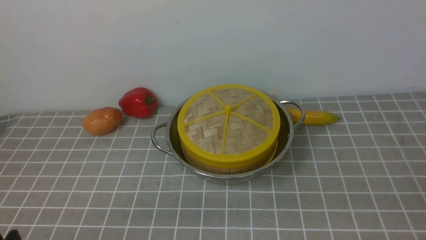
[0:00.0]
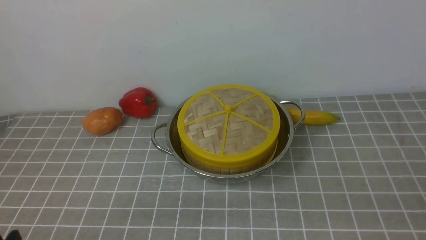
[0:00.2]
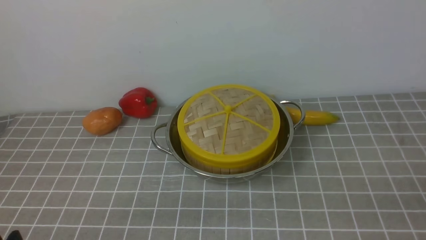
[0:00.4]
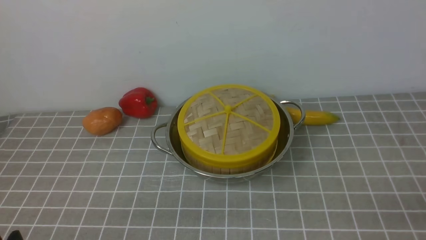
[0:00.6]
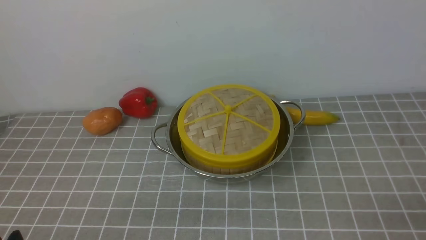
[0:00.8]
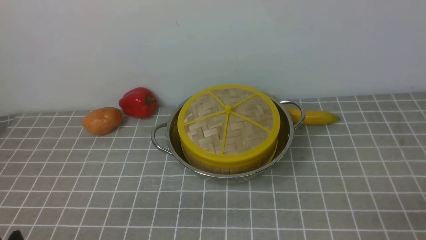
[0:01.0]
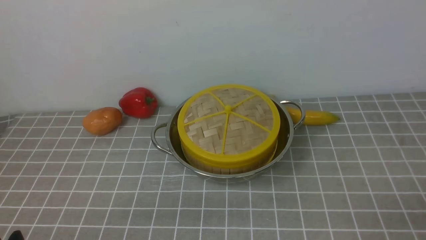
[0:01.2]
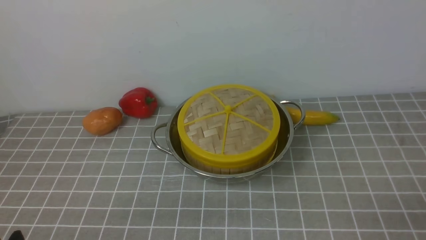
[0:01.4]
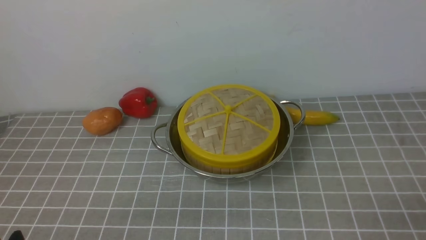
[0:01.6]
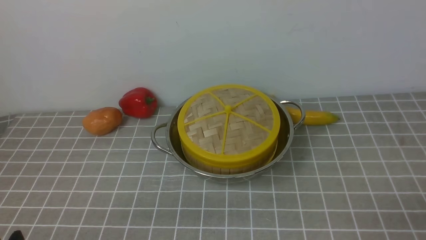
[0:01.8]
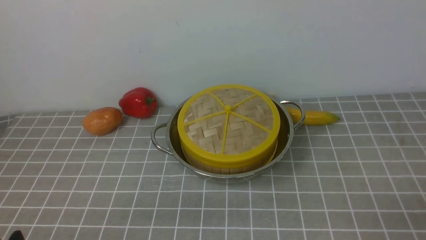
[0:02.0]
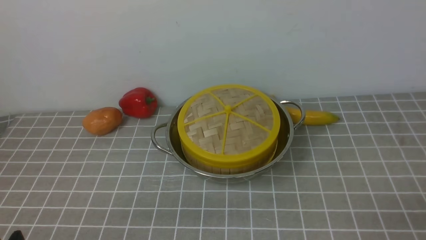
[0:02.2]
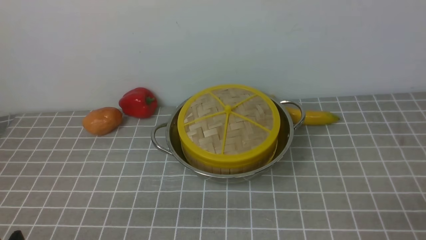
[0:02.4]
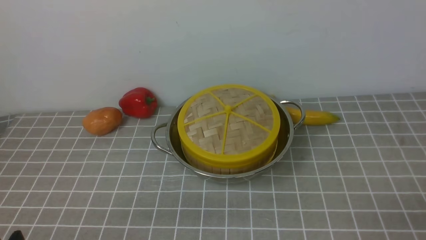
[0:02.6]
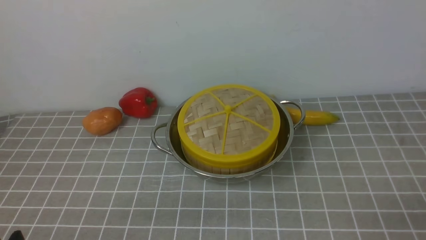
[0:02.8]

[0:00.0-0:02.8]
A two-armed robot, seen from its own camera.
Task of the whole recording: place the steamer in the pot on the grey tablecloth, and put the lid on the steamer.
0:01.4 to 0:02.8: The two grippers keep their place.

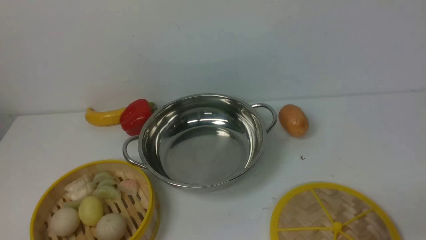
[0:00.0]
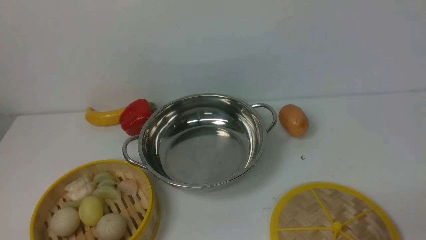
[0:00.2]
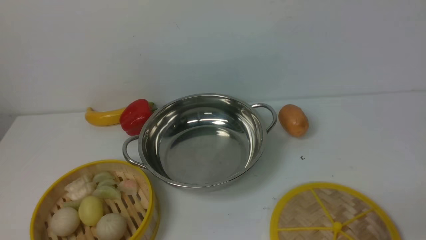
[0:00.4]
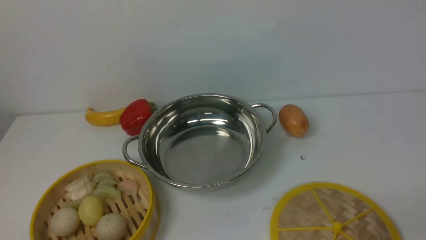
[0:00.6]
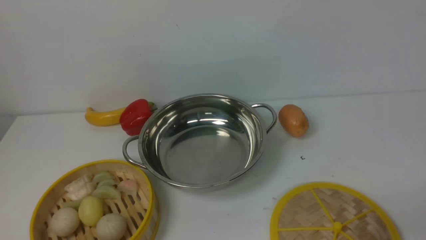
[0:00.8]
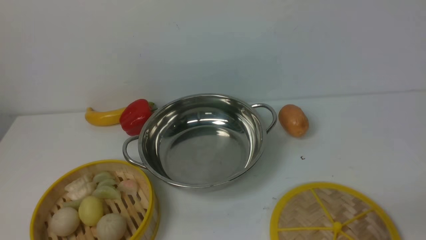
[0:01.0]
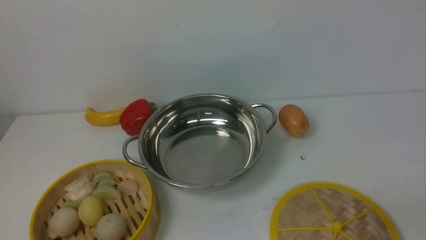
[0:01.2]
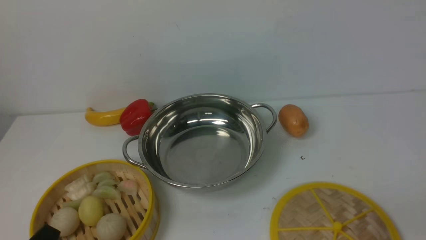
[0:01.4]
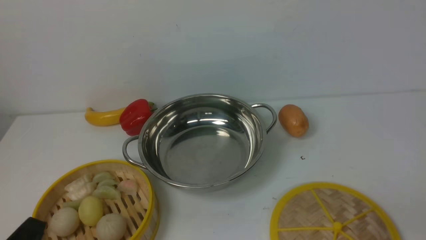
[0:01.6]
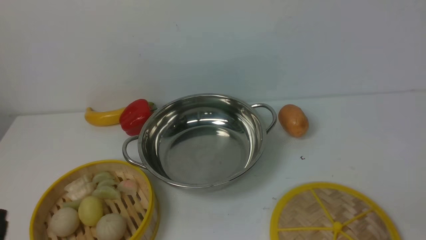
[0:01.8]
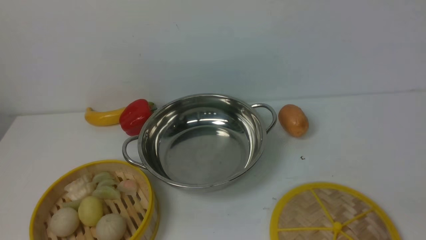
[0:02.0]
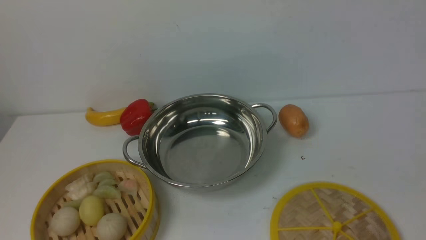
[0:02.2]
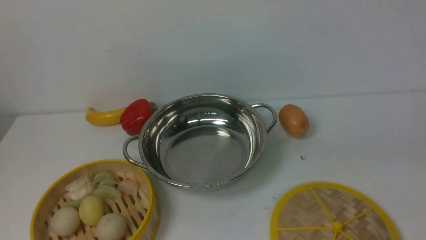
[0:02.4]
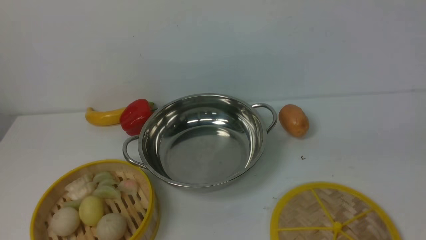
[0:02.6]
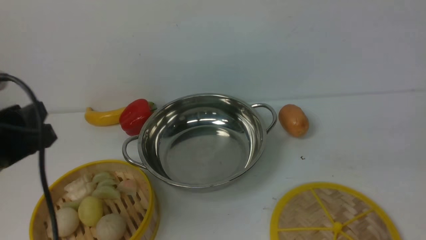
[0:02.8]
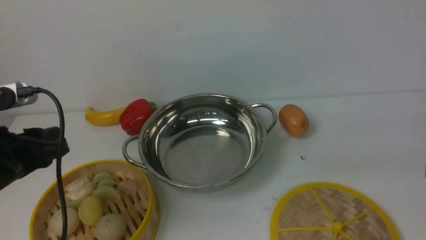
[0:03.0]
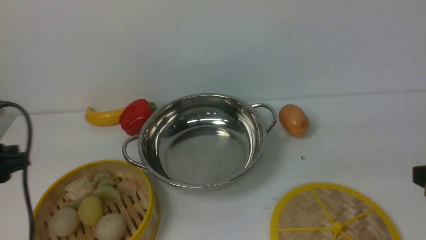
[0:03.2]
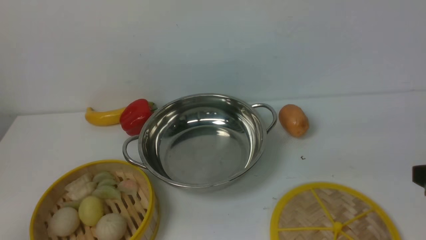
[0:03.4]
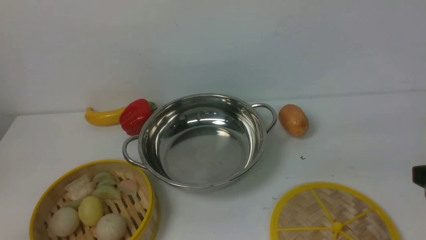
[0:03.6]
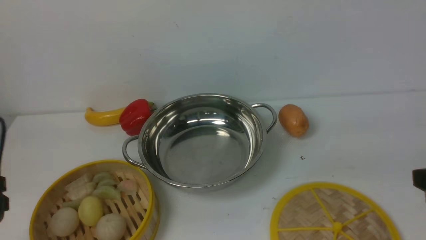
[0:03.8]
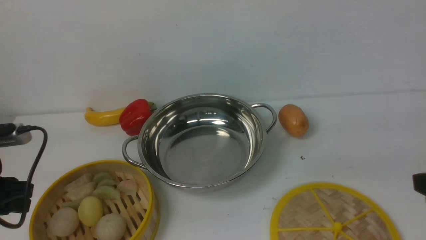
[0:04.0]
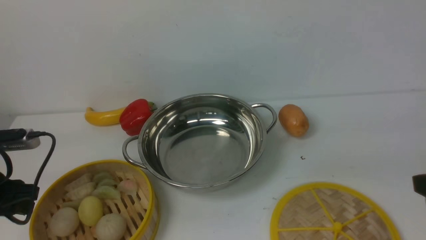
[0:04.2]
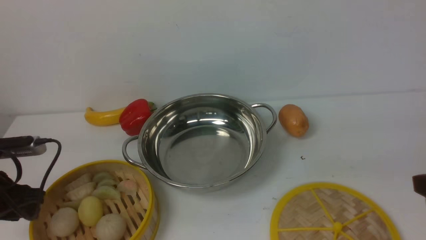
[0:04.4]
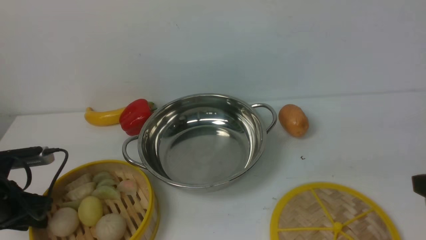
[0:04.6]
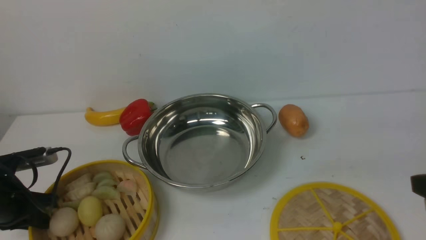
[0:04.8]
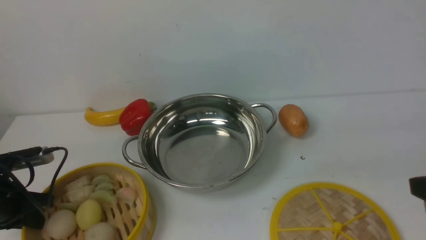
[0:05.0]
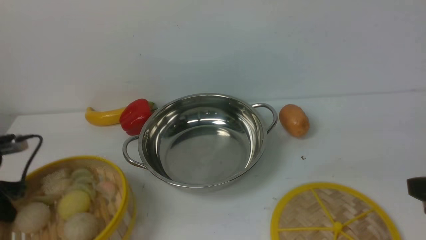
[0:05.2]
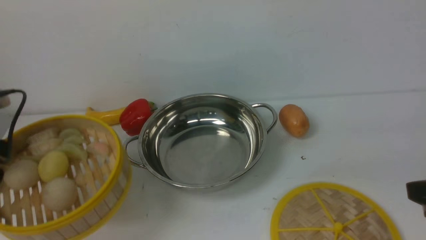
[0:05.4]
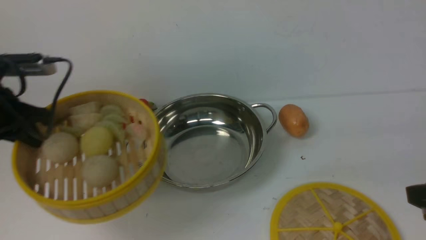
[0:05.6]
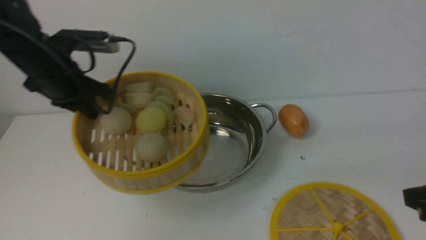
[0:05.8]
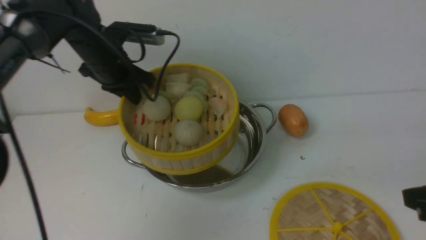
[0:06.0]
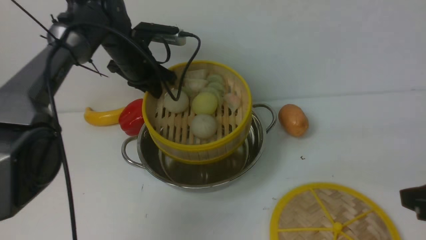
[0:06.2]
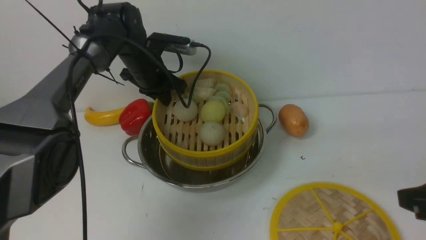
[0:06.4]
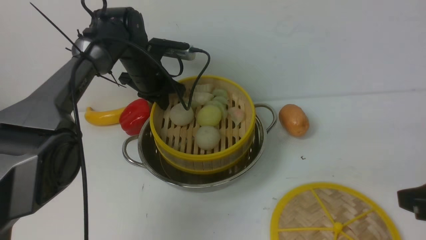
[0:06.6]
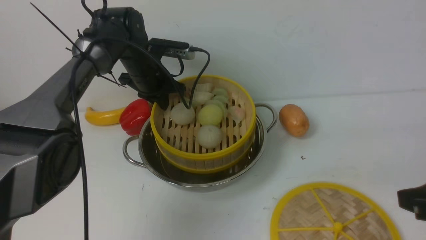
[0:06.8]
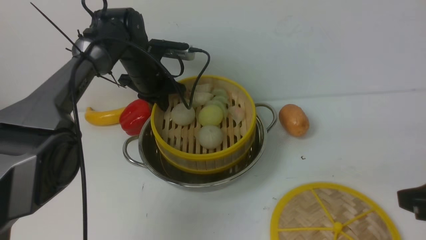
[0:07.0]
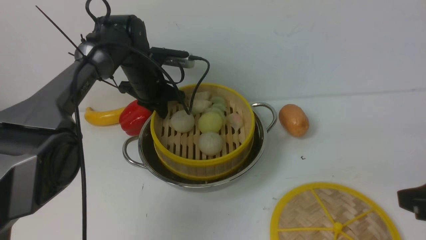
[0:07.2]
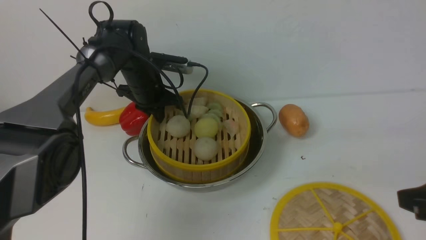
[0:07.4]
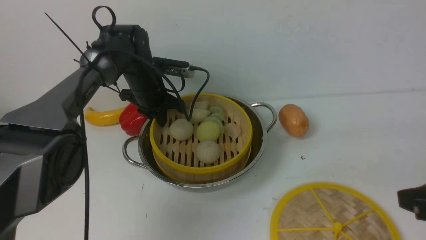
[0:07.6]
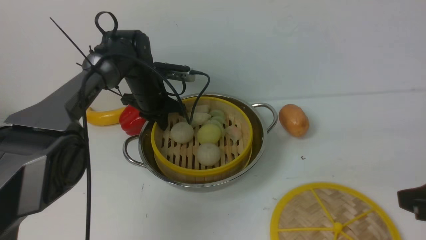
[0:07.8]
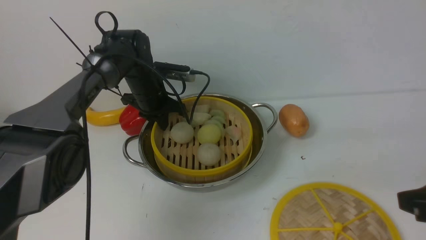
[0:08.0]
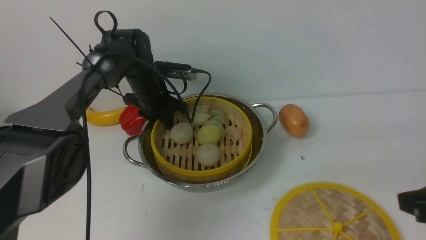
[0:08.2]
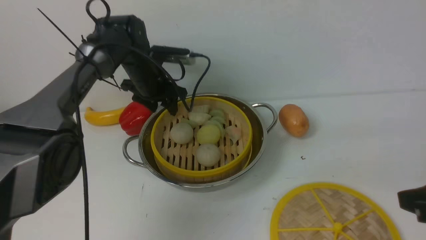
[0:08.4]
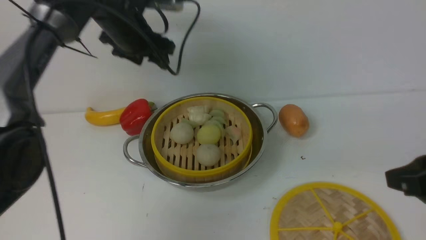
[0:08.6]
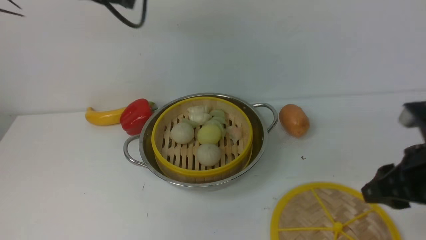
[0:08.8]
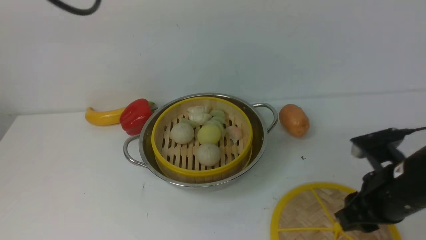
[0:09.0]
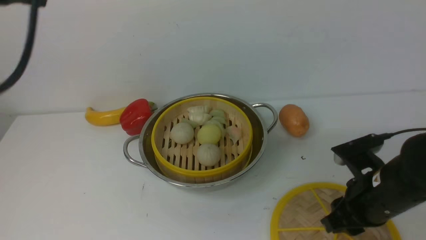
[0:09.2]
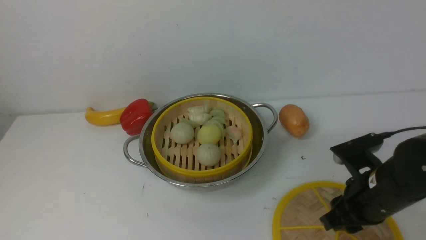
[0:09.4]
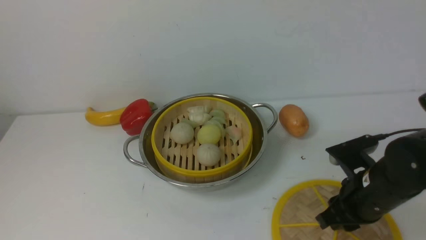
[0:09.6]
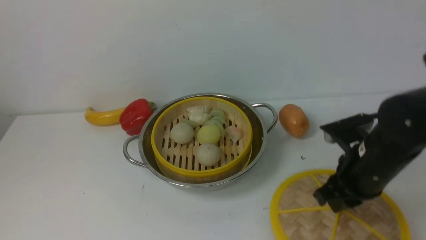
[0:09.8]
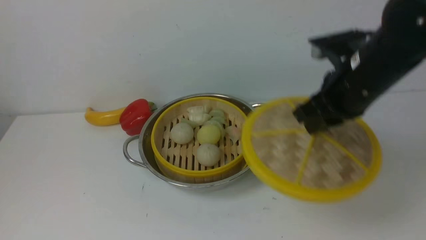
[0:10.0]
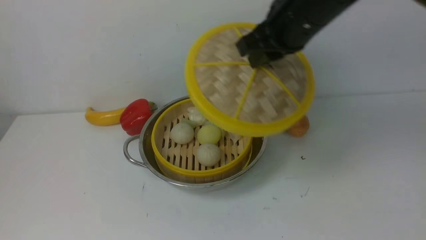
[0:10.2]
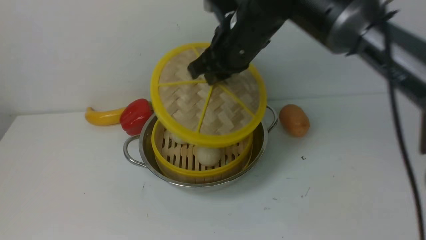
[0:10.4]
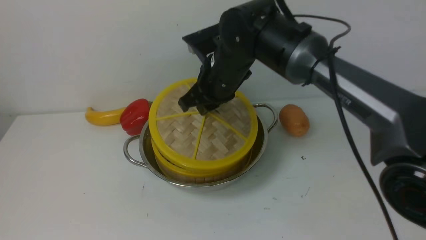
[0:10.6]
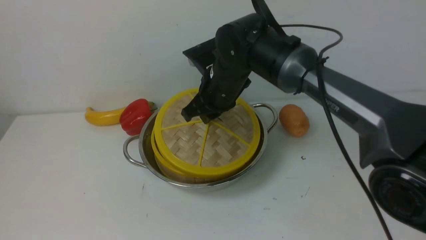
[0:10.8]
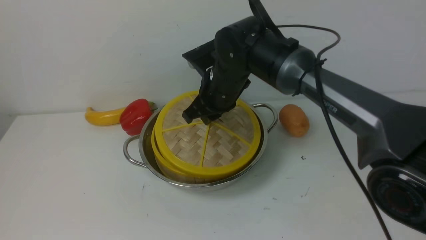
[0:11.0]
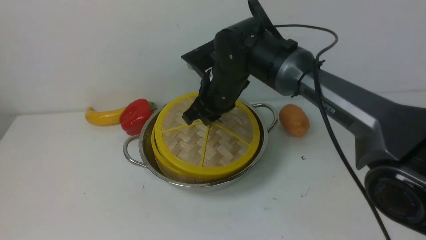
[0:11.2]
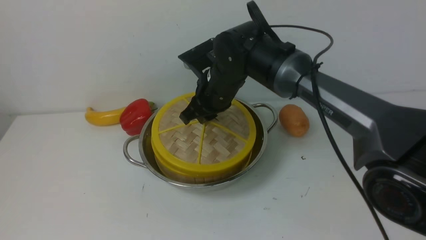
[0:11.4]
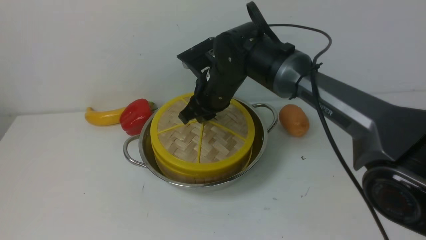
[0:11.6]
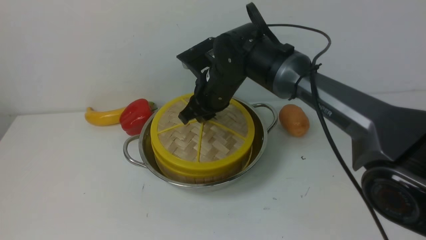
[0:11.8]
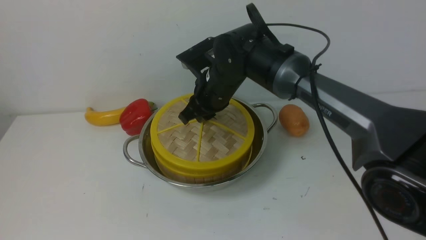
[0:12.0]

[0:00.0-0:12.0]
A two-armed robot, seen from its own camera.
Task of the whole recording: place the steamer in the pot on the white table, and put the lid on the steamer.
Step, 0:00.0 to 0:05.4: use the left arm to lift the steamer closest to it.
Step, 0:05.6 to 0:08.8: use the left arm to put the steamer into the iron steamer pot in the middle.
Step, 0:09.0 to 0:09.8: use the right arm to lift the lid of the steamer.
0:01.6 to 0:03.0: The two grippers go about 15 cm forward and upward.
0:03.0 to 0:04.4: The left gripper is displaced downward, to the left and forward by some 15 cm.
0:04.4 to 0:06.0: The left gripper heads forward, to the right and upward, covering approximately 25 cm, and closes.
0:06.0 to 0:07.6: The left gripper goes approximately 10 cm downward.
0:07.6 to 0:09.0: The left gripper shifts approximately 35 cm upward and backward, and opens, then closes once more. The right gripper is displaced forward and downward by approximately 10 cm.
0:09.0 to 0:10.4: The left gripper travels backward by about 35 cm, and closes up; the right gripper shifts approximately 25 cm to the left, forward and upward, and closes.
0:10.4 to 0:12.0: The right gripper is displaced downward by some 10 cm.

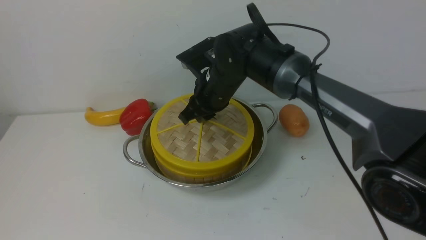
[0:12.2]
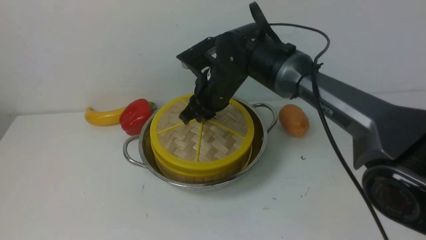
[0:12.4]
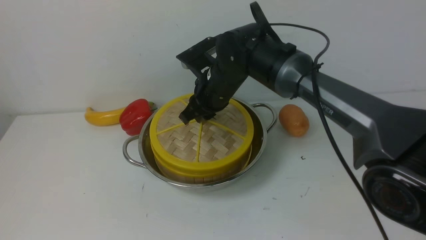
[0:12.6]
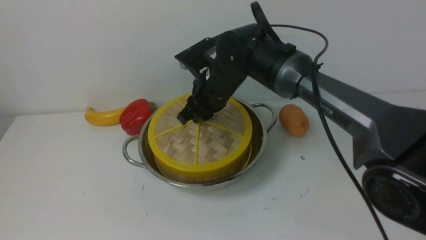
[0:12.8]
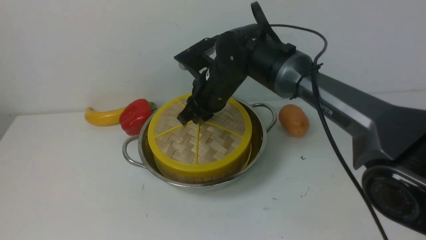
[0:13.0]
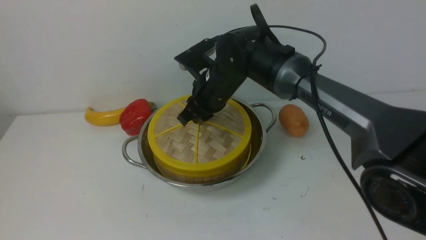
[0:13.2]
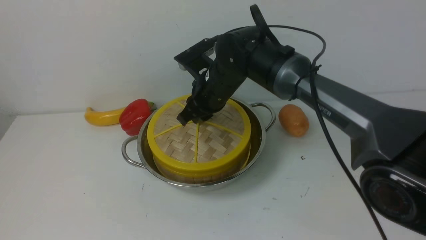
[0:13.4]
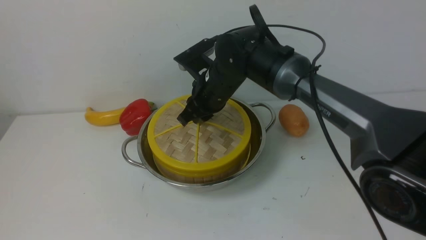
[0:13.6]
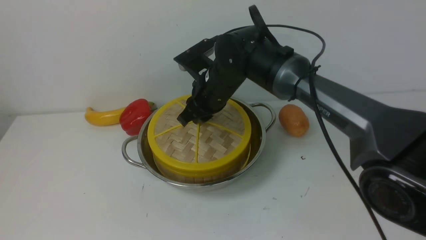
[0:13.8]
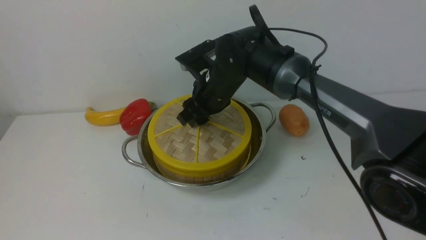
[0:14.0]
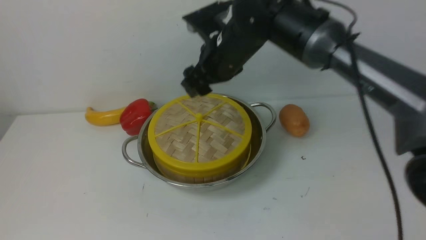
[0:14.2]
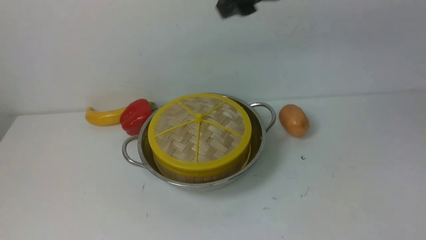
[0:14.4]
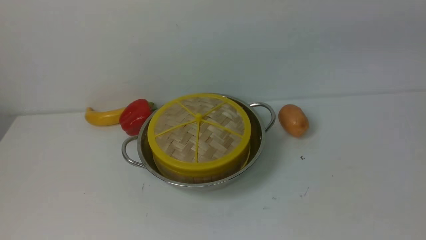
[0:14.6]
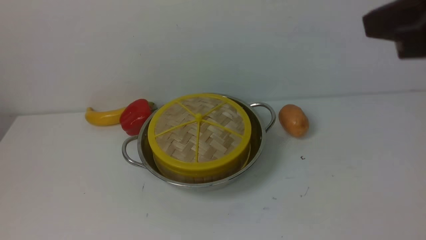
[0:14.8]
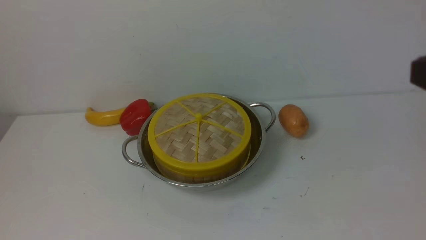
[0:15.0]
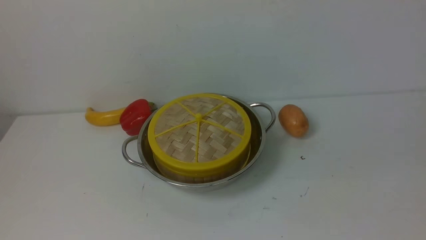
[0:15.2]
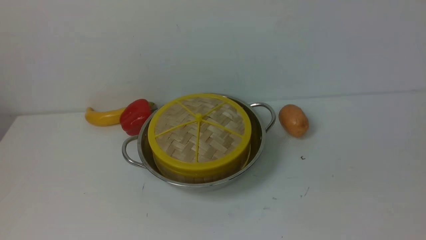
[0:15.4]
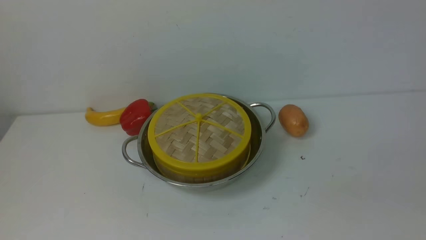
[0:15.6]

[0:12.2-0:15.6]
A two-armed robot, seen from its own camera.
Task of the whole recording: place the steamer in the pot on the white table, and put the lid on the steamer.
Step, 0:12.2 to 0:14.6: use the right arm to place the steamer lid on the steamer.
0:12.2 to 0:13.8: Both grippers stay about where they are.
0:13.8 to 0:15.6: The right gripper shifts about 50 cm backward and to the right, and closes.
